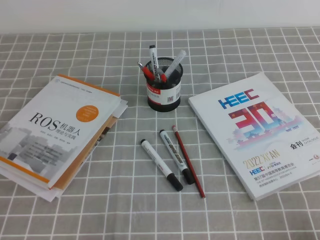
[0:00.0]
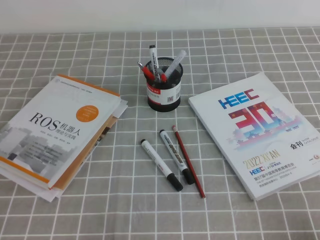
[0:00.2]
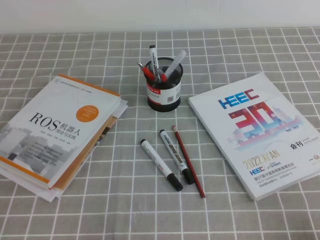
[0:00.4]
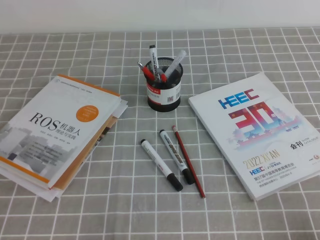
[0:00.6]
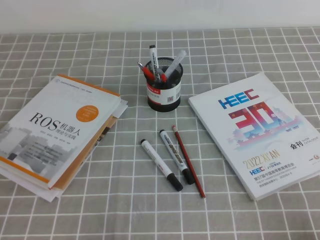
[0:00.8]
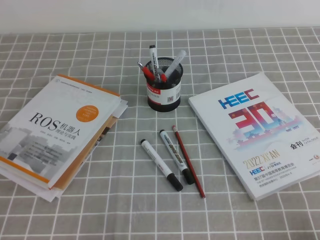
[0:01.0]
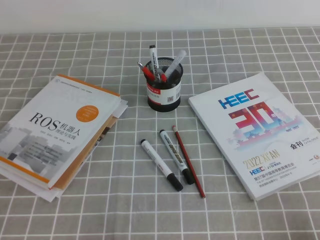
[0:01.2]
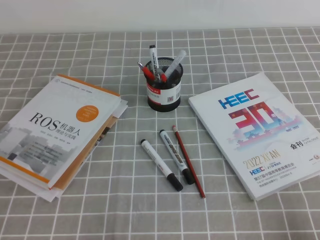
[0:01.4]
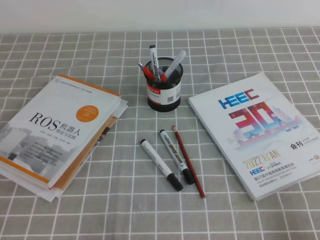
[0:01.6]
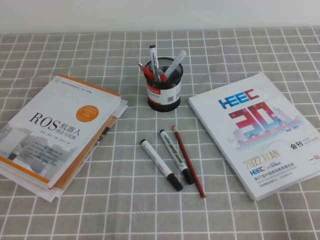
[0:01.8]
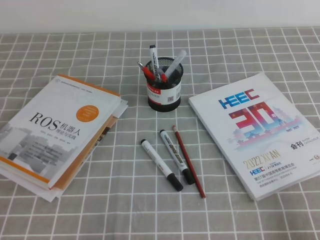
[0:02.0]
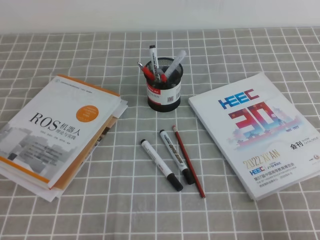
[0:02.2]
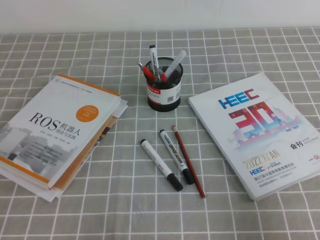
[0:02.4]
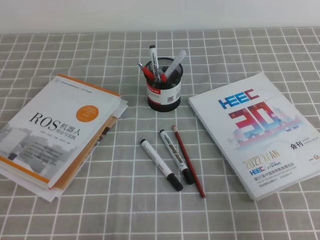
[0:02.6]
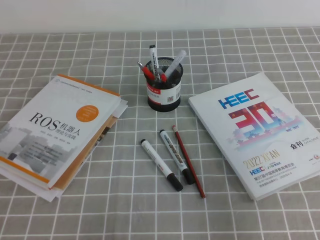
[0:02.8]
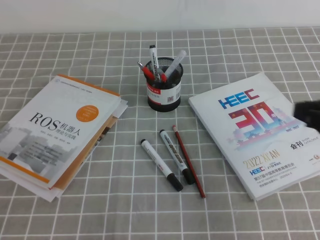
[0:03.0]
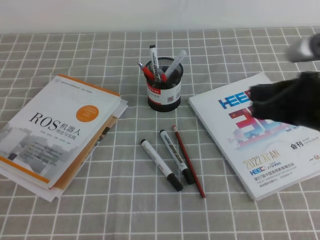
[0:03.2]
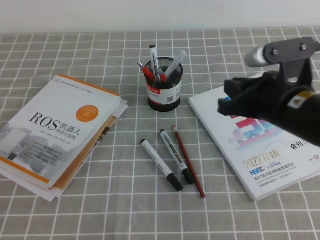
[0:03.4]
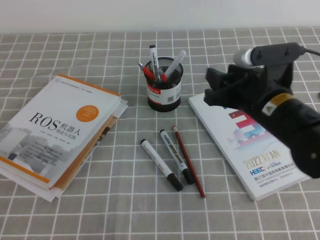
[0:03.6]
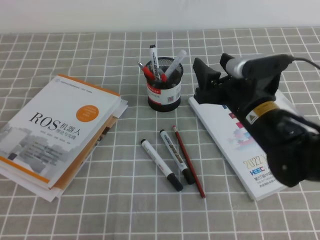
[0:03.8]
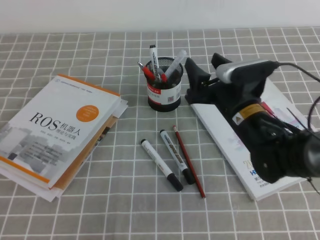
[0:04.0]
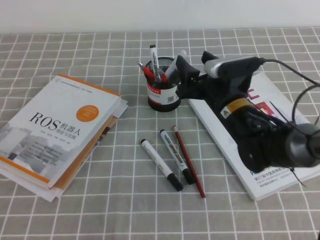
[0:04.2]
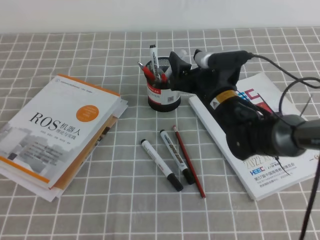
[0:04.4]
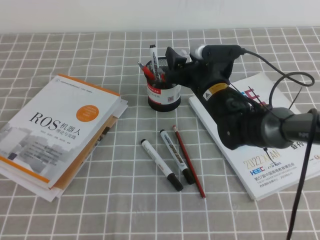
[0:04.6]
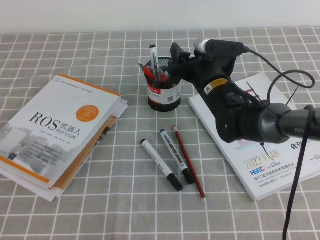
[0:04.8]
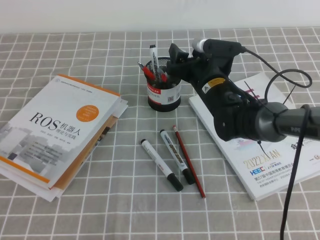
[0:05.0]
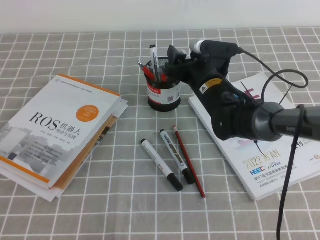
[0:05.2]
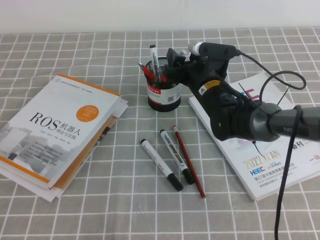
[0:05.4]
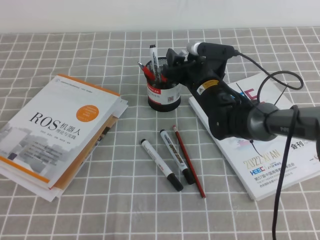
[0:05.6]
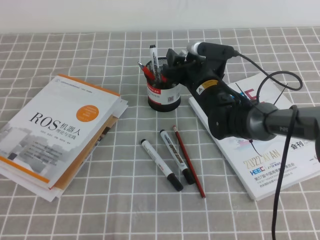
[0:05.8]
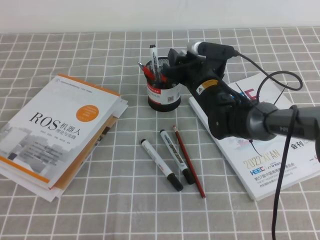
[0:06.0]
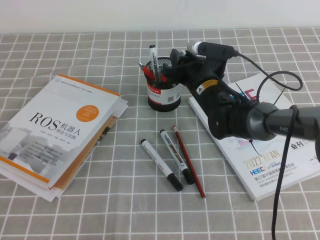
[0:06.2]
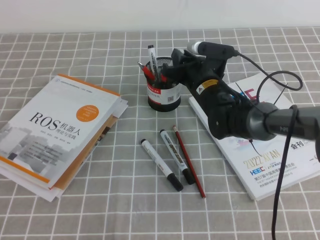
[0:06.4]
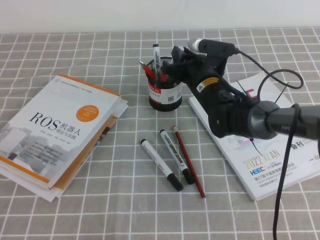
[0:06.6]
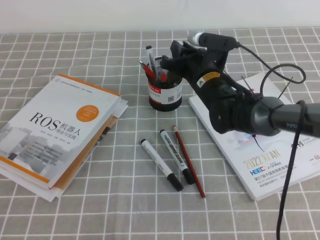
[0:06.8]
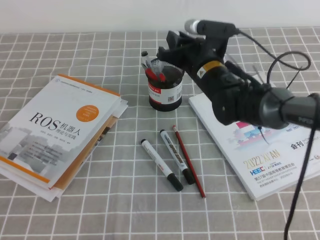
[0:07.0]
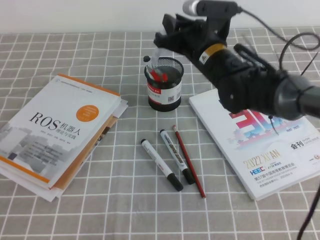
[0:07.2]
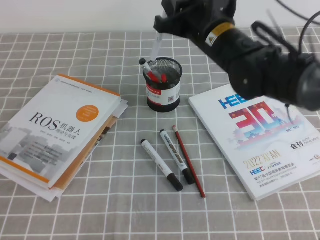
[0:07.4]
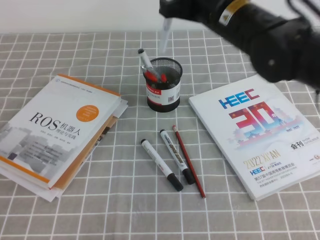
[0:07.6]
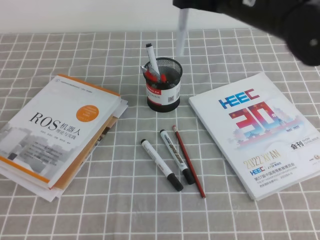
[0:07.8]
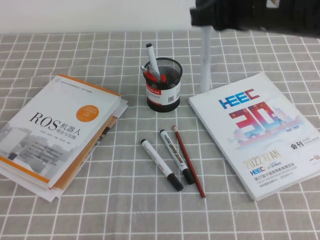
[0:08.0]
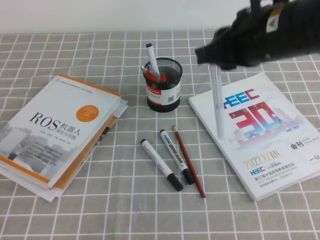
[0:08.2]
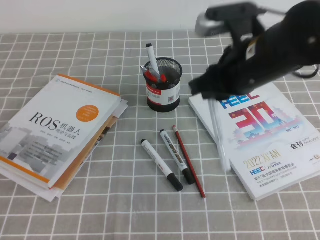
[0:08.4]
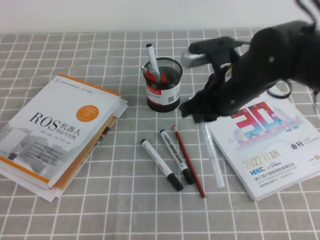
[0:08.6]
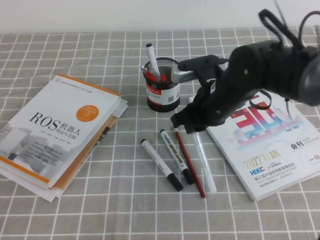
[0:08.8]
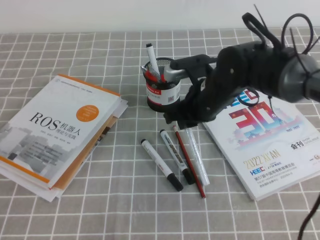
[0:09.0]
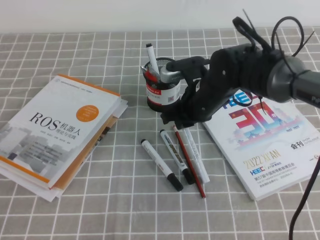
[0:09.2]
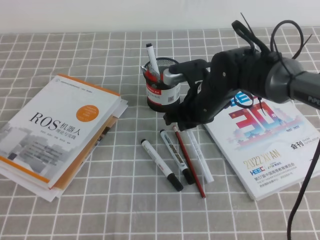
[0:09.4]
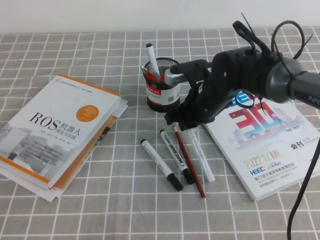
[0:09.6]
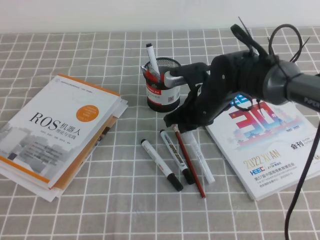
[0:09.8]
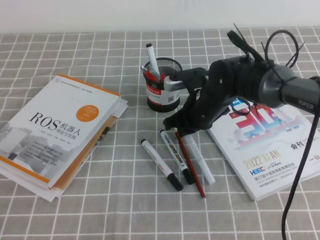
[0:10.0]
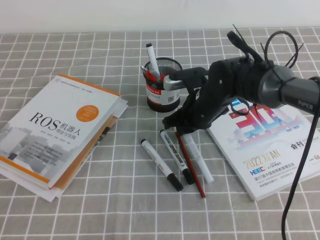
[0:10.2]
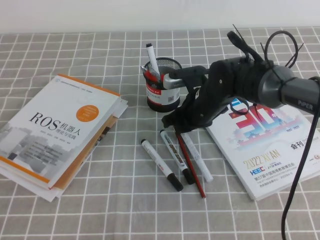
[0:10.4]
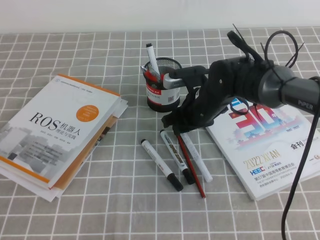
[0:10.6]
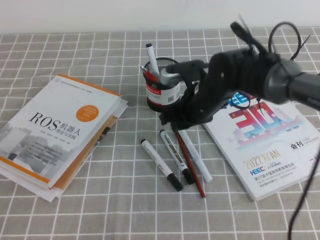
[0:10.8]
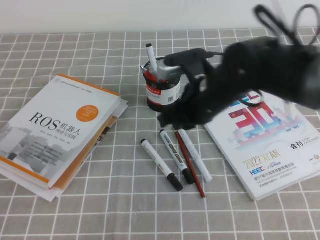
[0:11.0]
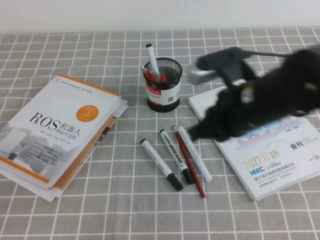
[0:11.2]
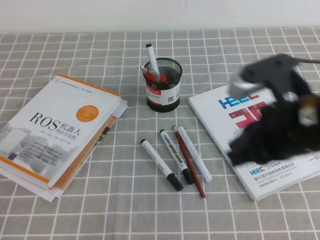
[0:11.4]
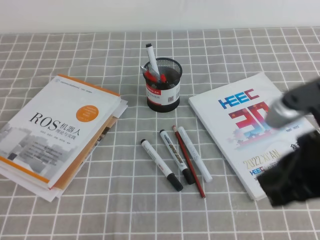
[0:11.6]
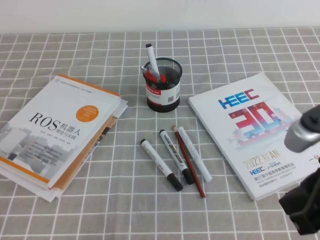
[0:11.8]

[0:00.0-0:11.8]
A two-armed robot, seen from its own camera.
0:01.4 to 0:03.0: The right gripper shifts approximately 20 cm forward, upward and to the left.
0:03.0 to 0:04.4: The right gripper shifts roughly 25 cm forward, to the left and downward, and opens.
0:04.4 to 0:06.0: The right gripper goes roughly 5 cm forward.
0:06.0 to 0:07.4: The right gripper is displaced upward by roughly 15 cm, and closes.
0:07.4 to 0:08.8: The right gripper goes some 5 cm downward.
0:08.8 to 0:10.4: The right gripper goes approximately 5 cm downward.
0:10.4 to 0:11.8: The right gripper goes approximately 30 cm backward, upward and to the right, and closes its fingers.

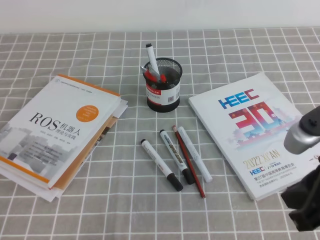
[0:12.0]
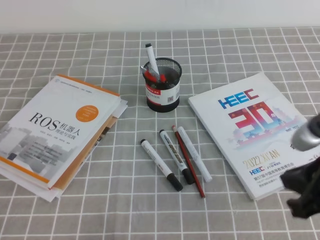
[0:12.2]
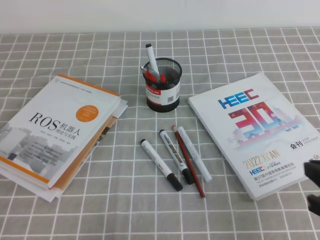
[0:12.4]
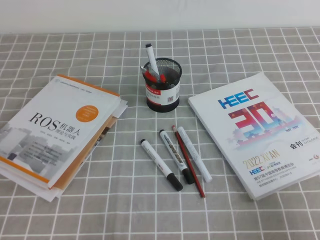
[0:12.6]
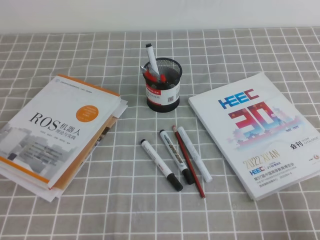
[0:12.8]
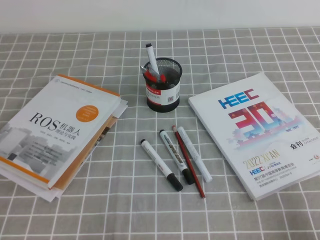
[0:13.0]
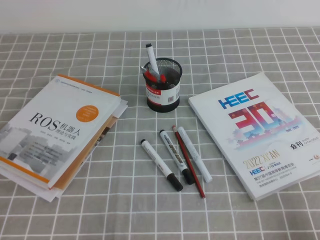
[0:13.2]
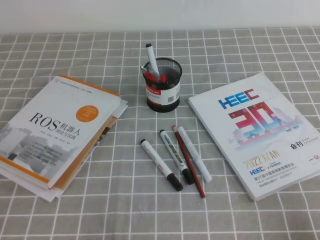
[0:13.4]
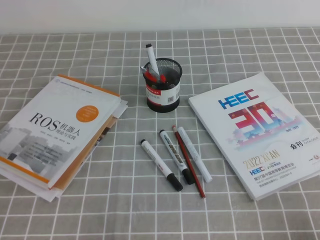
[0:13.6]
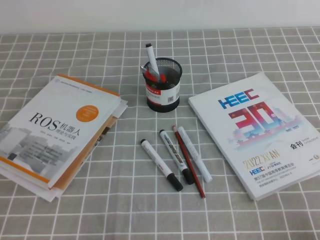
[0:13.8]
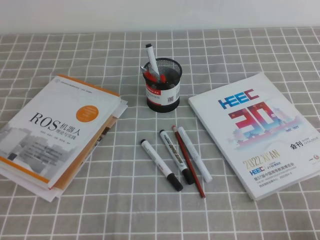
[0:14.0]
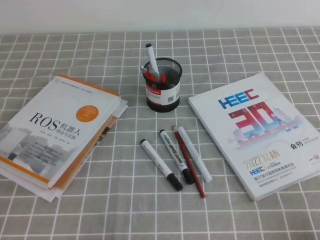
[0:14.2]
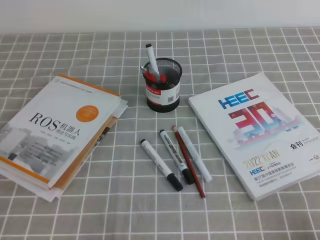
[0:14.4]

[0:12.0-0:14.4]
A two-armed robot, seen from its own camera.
Step, 0:12.0 to 0:14.4: Pick up the pen from the pen holder.
0:12.0 to 0:13.2: The right gripper moves downward, to the right and backward, about 20 cm.

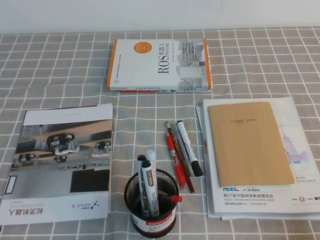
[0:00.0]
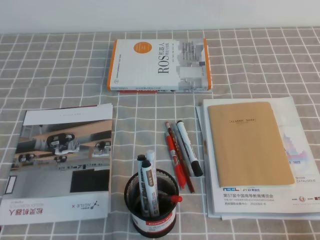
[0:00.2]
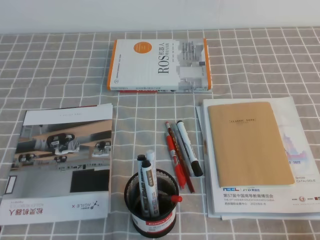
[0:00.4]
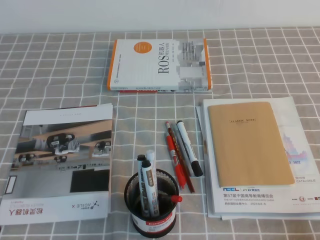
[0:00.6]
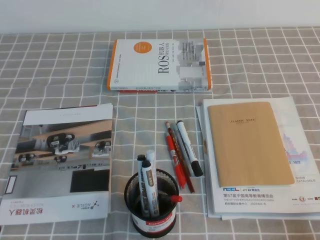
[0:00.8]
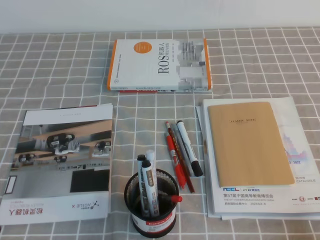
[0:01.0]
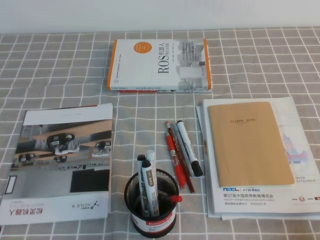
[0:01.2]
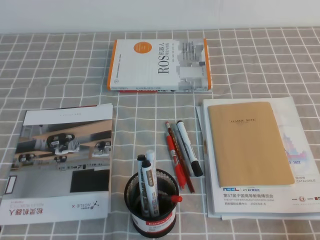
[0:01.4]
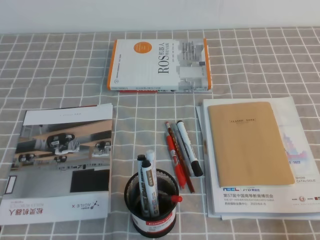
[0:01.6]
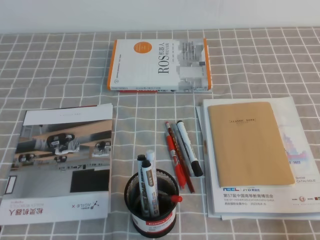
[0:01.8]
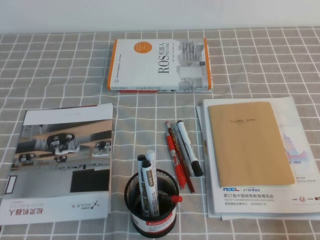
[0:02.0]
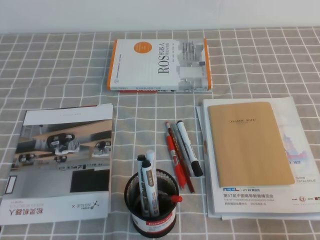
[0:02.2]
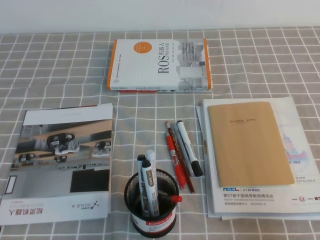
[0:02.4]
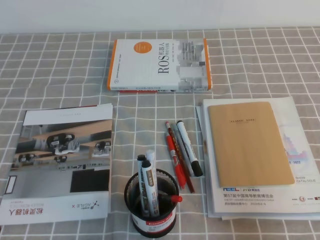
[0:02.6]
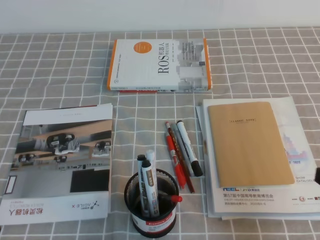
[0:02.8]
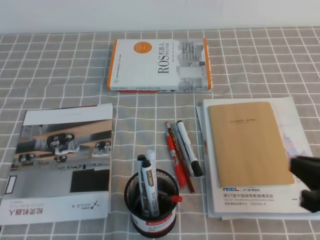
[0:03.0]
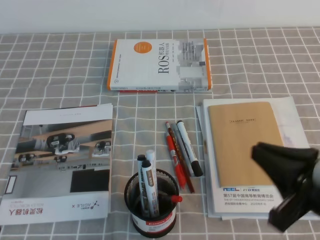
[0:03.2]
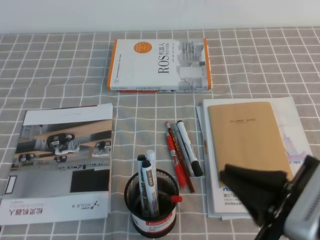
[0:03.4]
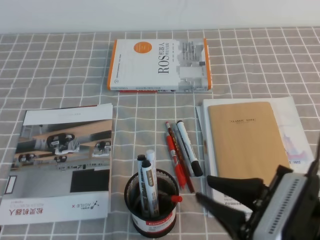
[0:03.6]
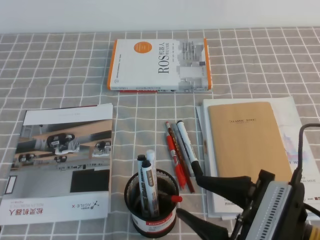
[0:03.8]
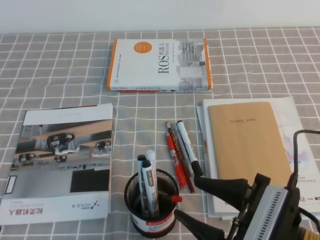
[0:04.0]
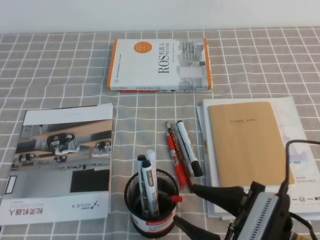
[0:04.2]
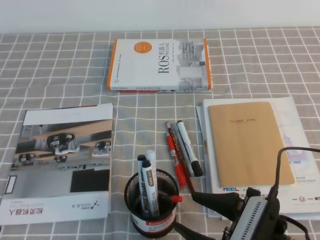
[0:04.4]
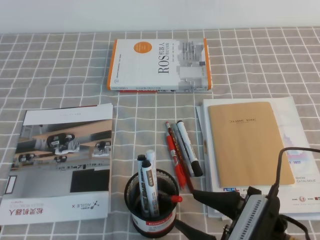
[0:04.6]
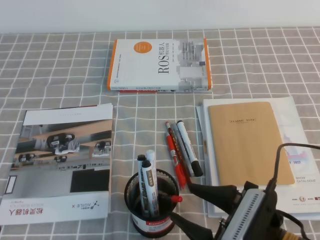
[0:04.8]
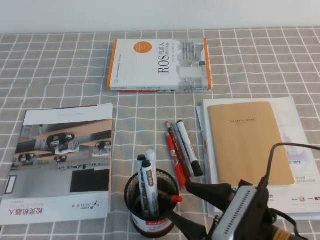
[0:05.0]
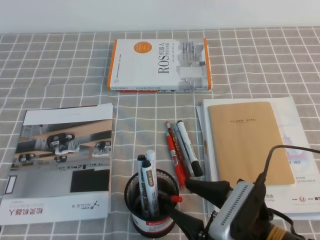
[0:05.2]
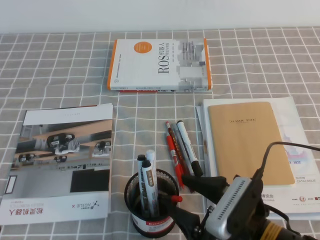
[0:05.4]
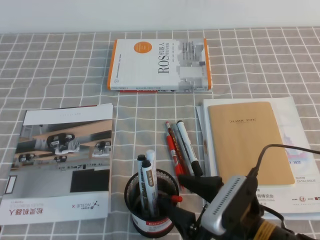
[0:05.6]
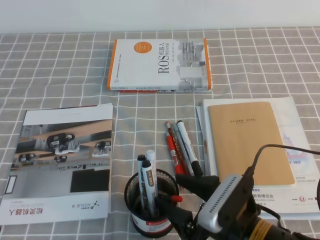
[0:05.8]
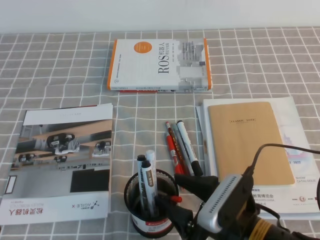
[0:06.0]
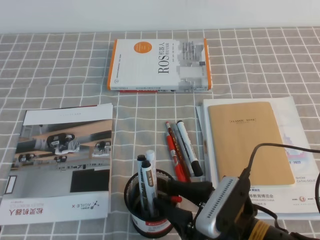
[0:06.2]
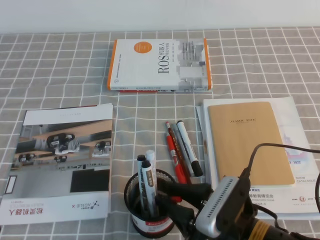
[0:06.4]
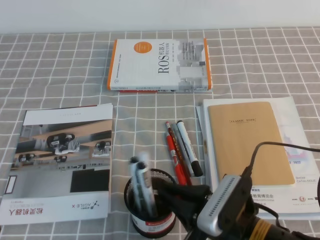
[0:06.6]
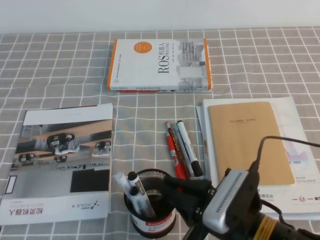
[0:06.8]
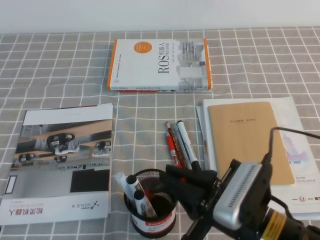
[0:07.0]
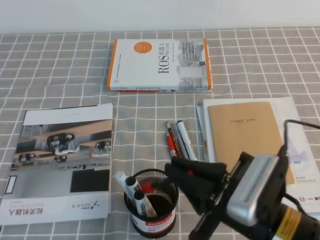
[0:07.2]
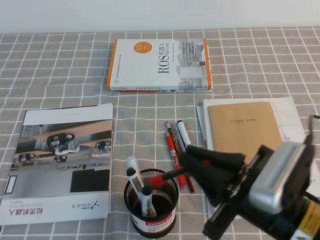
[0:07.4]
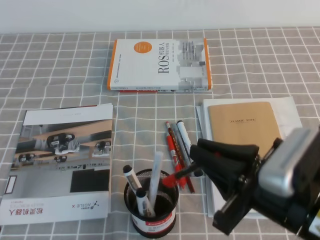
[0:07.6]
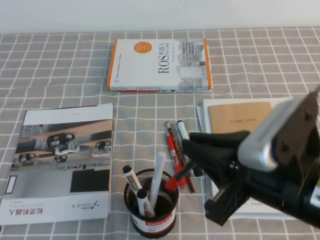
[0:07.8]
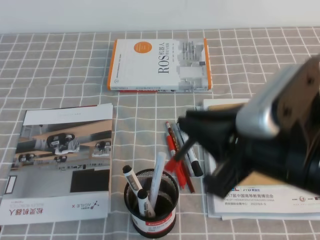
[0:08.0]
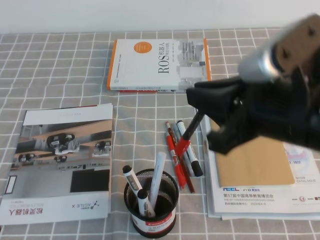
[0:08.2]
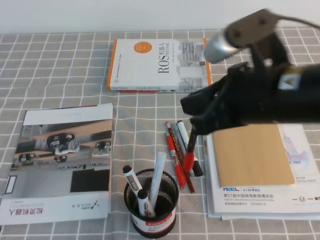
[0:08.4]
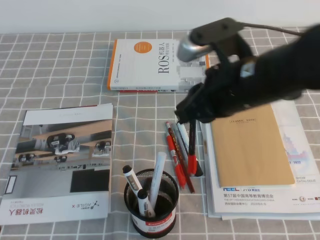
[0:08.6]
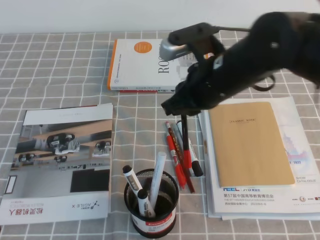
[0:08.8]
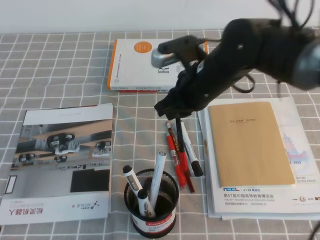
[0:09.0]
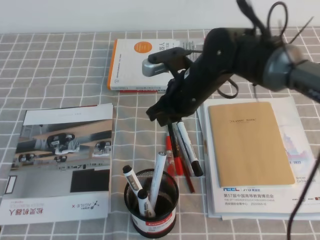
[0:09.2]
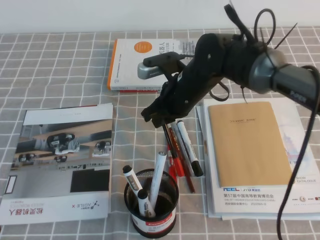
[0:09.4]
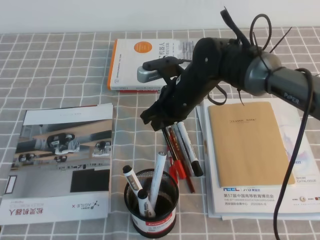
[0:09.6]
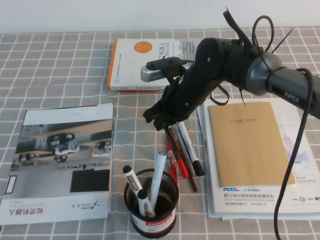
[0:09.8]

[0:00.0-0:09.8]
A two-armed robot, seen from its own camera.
0:01.4 to 0:02.8: The right gripper goes roughly 10 cm upward and forward.
0:02.8 to 0:04.2: The right gripper shifts approximately 15 cm to the left and downward, and opens its fingers.
0:04.2 to 0:05.6: The grippers make only small movements.
0:05.6 to 0:07.0: The right gripper closes its fingers.
0:07.0 to 0:08.4: The right gripper heads upward and forward, covering about 15 cm.
0:08.4 to 0:09.8: The right gripper is displaced forward, downward and to the left by about 25 cm.
